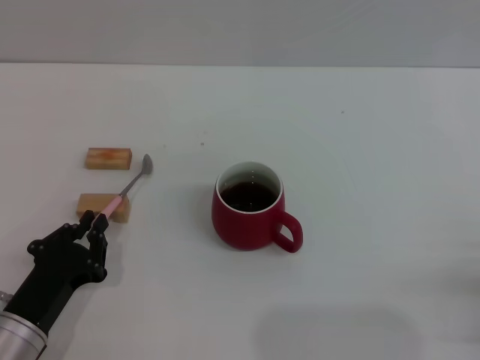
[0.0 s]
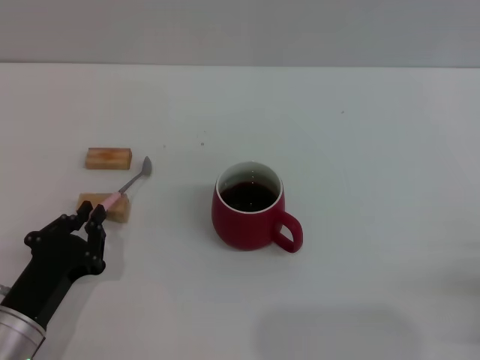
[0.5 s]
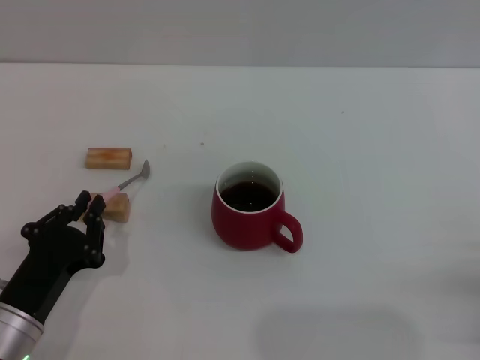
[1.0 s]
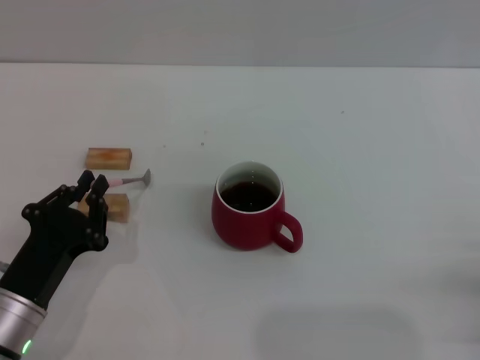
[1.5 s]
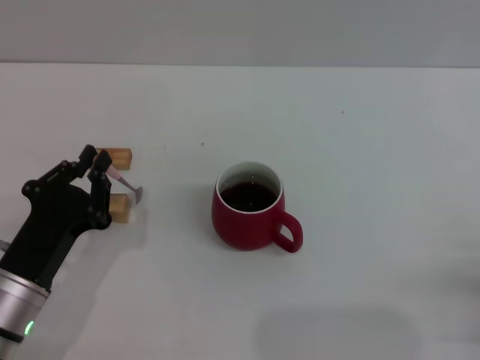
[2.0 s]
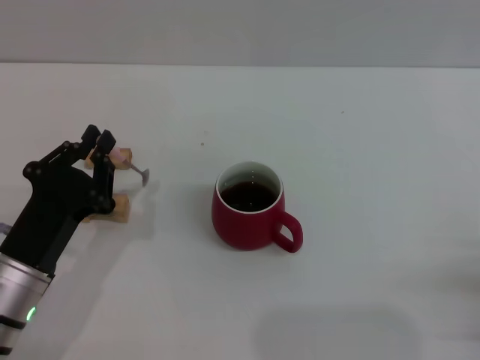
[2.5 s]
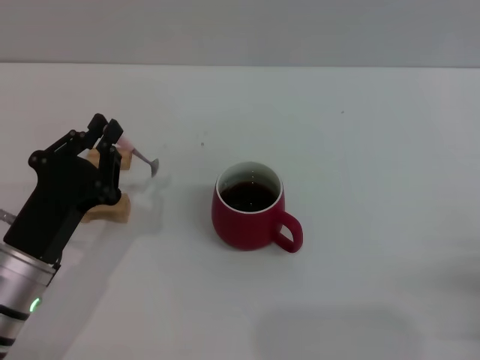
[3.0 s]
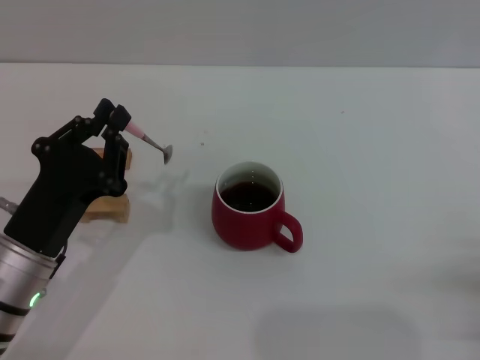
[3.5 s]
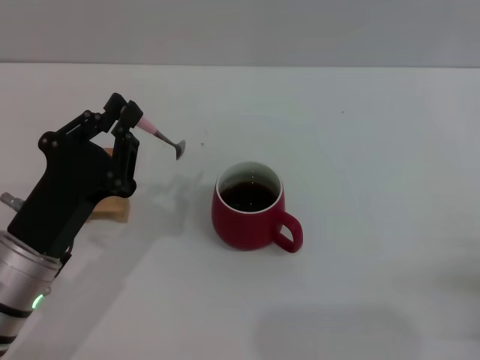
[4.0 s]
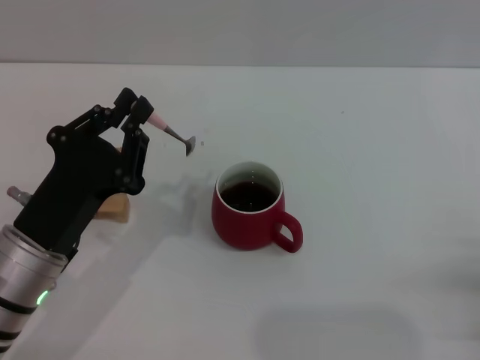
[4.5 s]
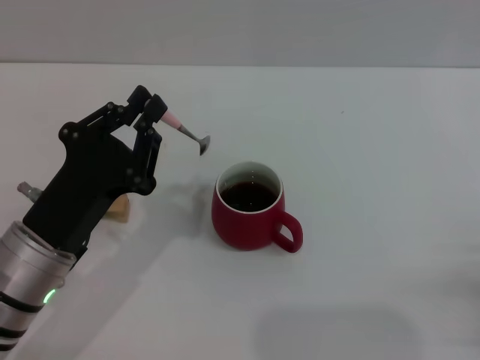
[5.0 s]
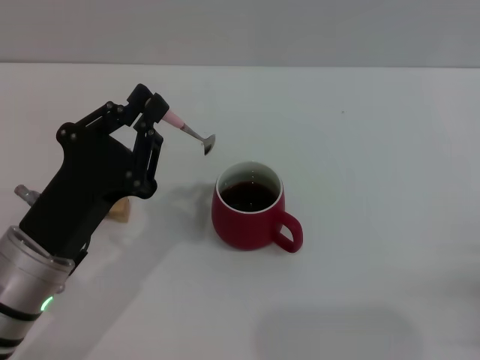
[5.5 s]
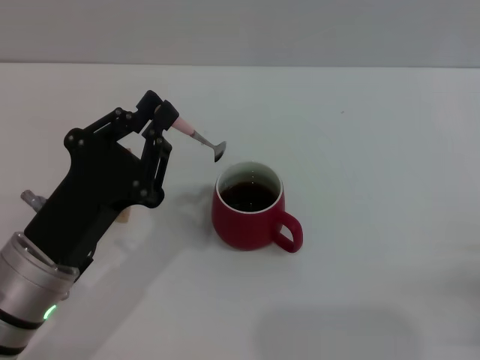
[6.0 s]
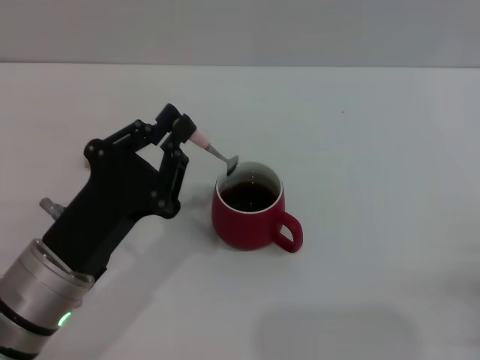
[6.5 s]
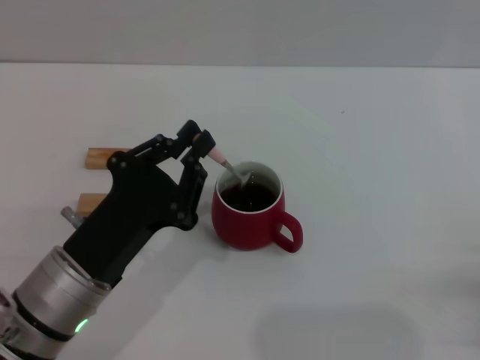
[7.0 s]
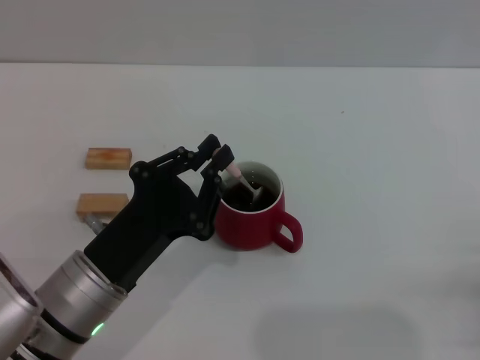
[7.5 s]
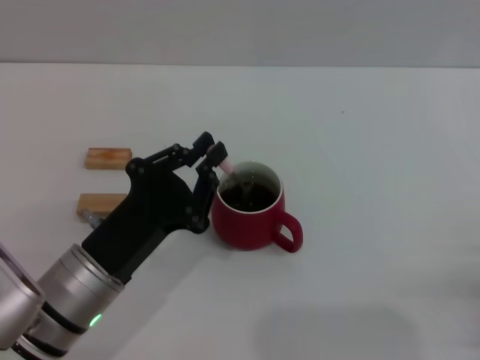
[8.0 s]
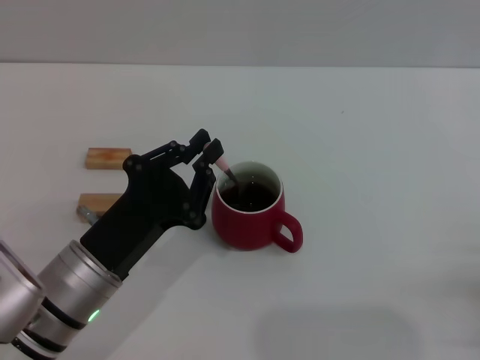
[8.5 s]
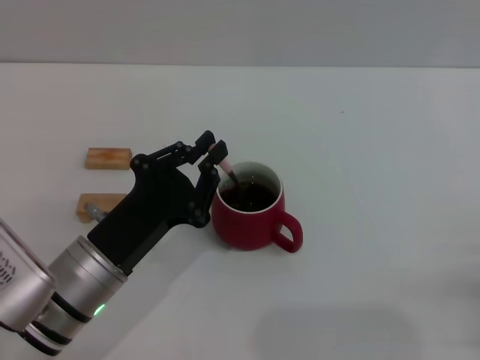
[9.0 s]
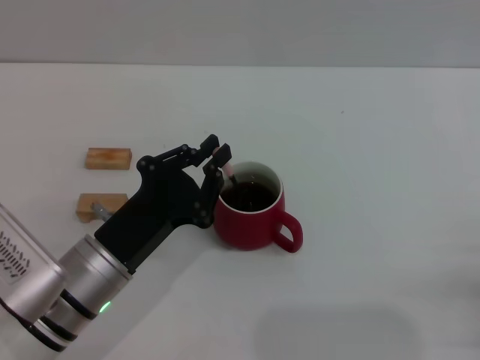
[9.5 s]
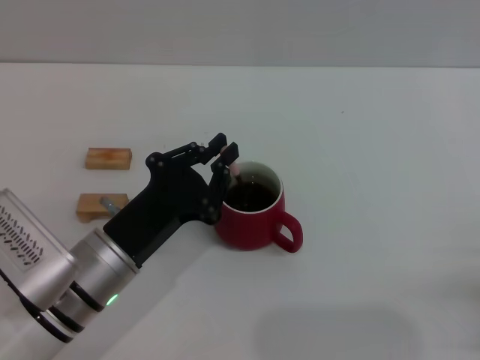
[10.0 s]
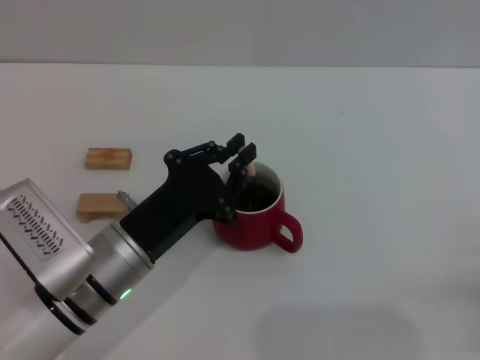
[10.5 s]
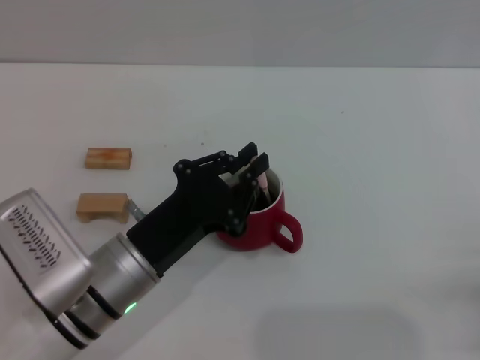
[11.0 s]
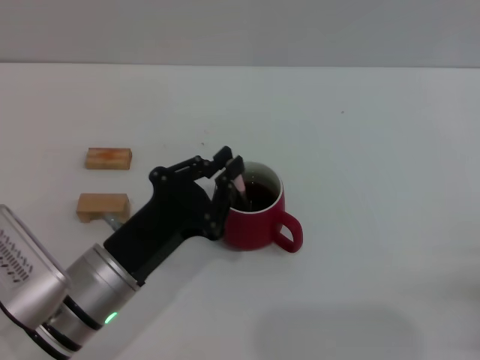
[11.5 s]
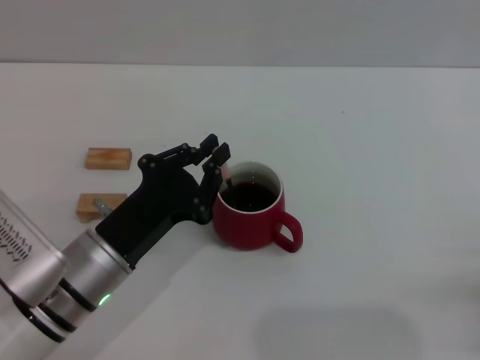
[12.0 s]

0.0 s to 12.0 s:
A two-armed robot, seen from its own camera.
Task of the whole recording: Move the red cup to the center, lift the pink spoon, stir it three times in the cup, and put the spoon into the cup.
Step, 0.0 to 3.5 s: Pick up the spoon with the left gripper.
0.0 to 2.0 s: The grippers move only a little.
2.0 to 4.0 s: There are only small adjustments of the grippers.
4.0 to 10.0 s: The grippers make only small movements.
10.0 to 12.0 s: The grippers stay close to where they were, moving slightly.

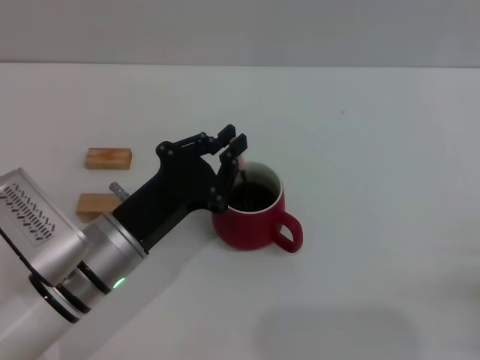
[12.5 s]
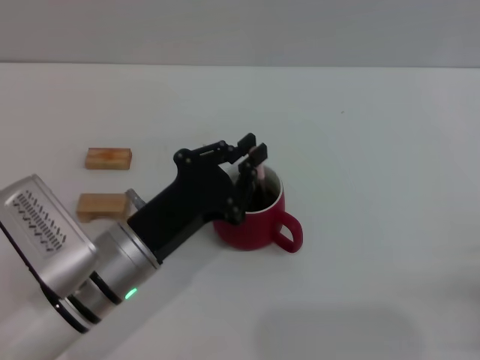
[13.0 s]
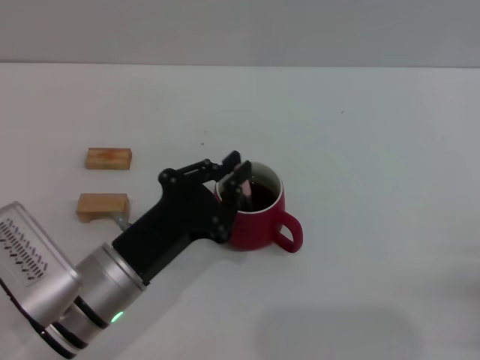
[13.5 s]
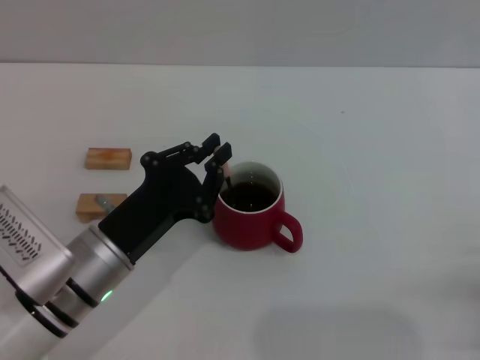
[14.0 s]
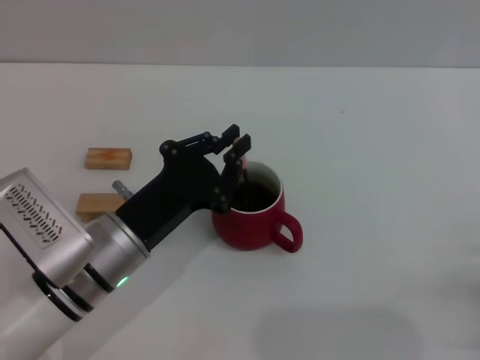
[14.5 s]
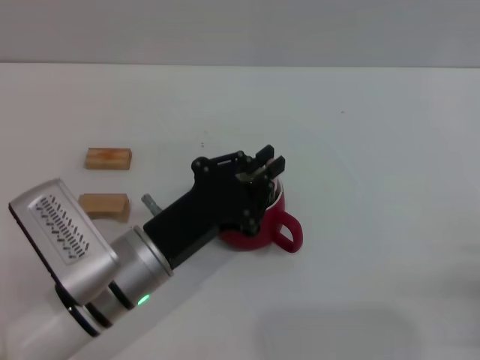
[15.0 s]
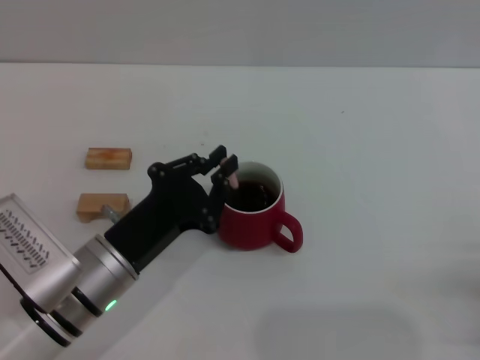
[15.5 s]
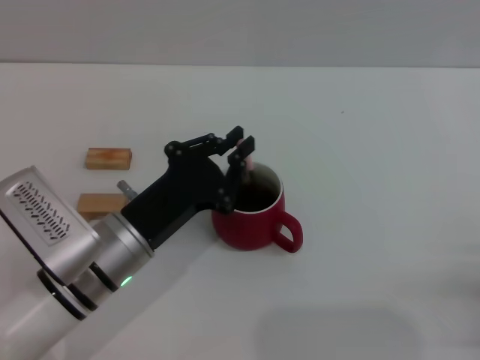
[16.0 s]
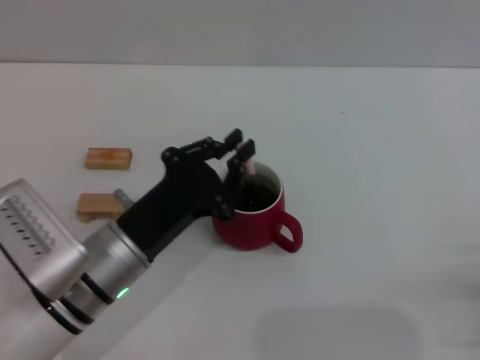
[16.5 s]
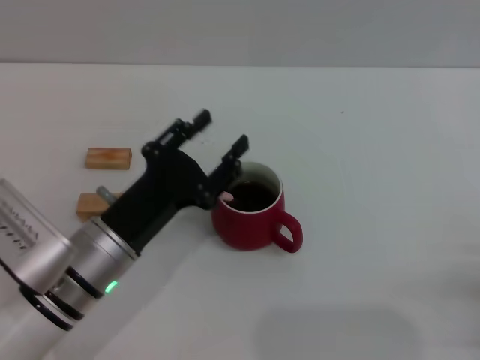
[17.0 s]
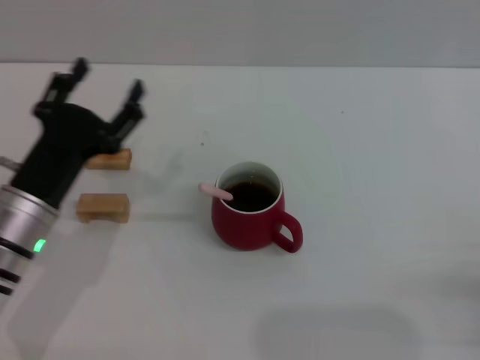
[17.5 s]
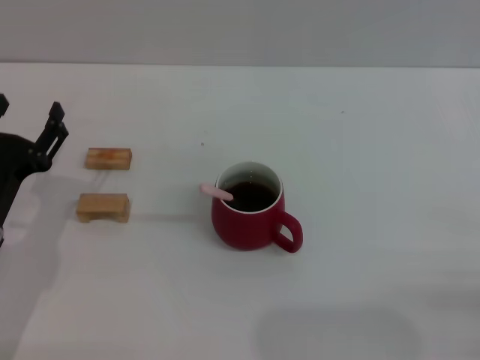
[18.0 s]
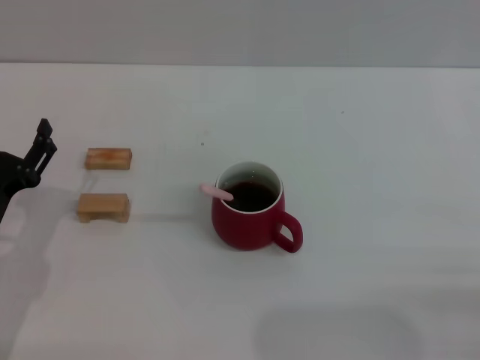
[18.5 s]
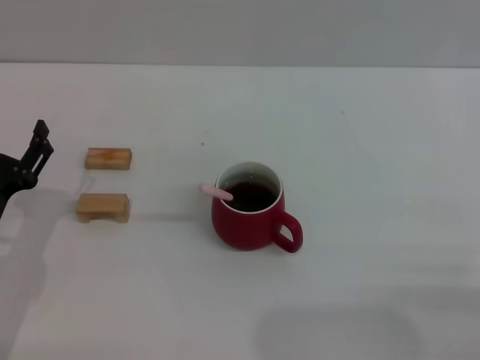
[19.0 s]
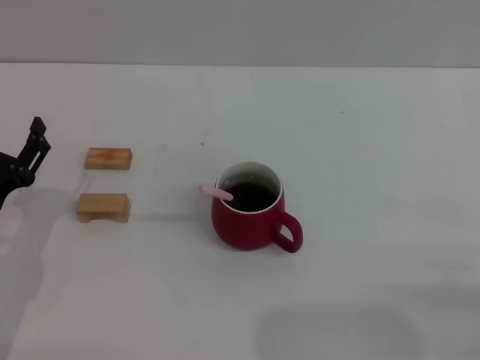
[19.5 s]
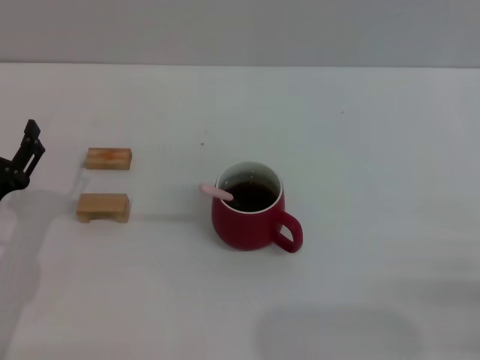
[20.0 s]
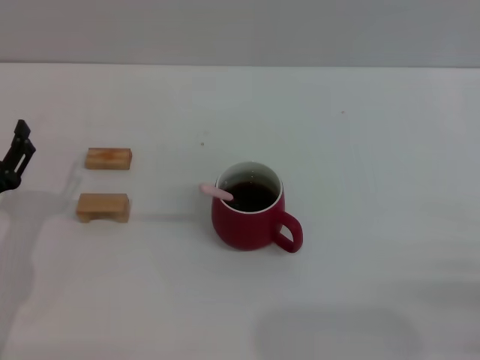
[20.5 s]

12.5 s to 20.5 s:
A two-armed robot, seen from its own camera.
Task of the whole recording: Move the red cup to the center, lift the pink spoon, stir it three times in the cup, and put the spoon into the cup.
Step, 12.5 to 17.0 s: Stir the coffee in the cup with the left gripper.
12.5 to 16.5 s: The grippers make only small movements.
16.5 to 18.5 s: The left gripper shifts roughly 15 cm to the left, and opens its fingers.

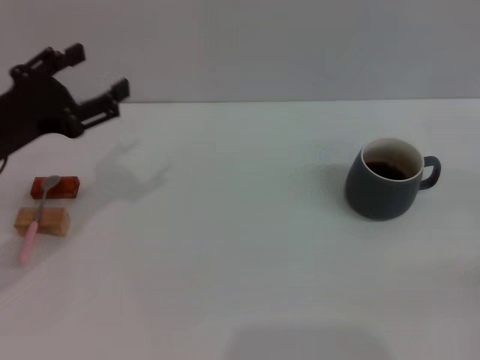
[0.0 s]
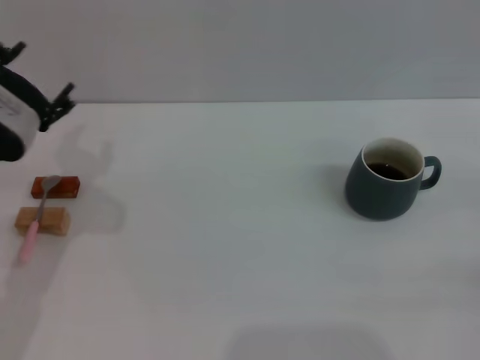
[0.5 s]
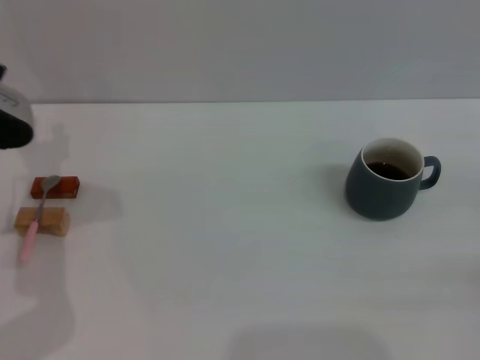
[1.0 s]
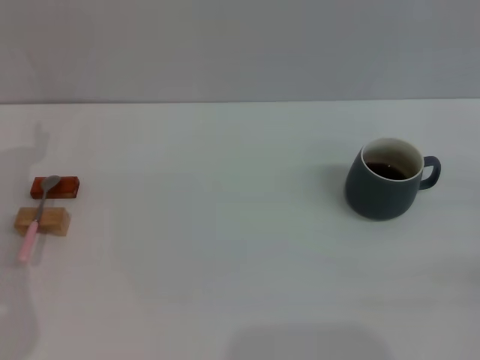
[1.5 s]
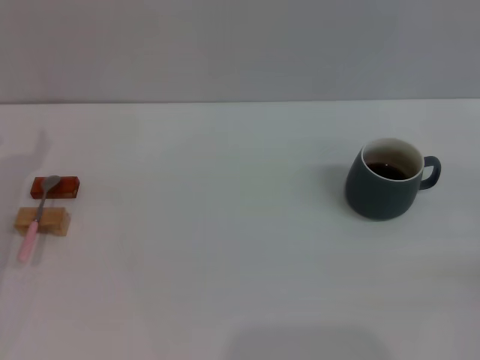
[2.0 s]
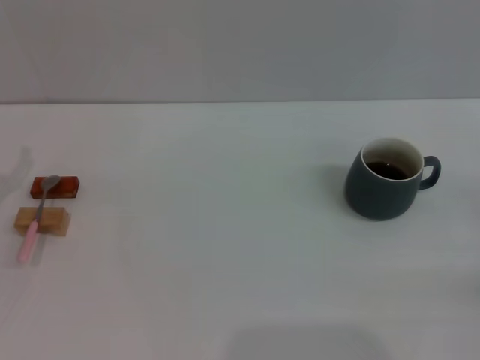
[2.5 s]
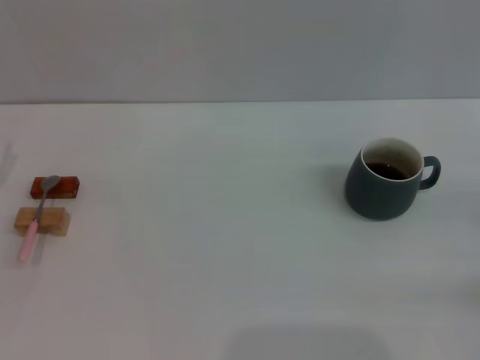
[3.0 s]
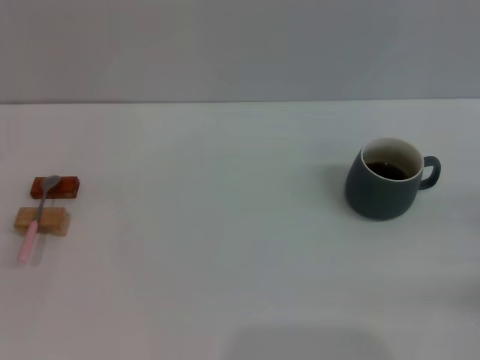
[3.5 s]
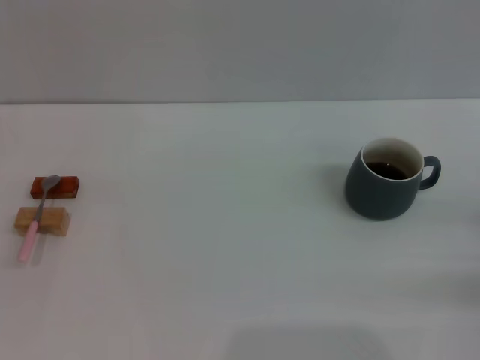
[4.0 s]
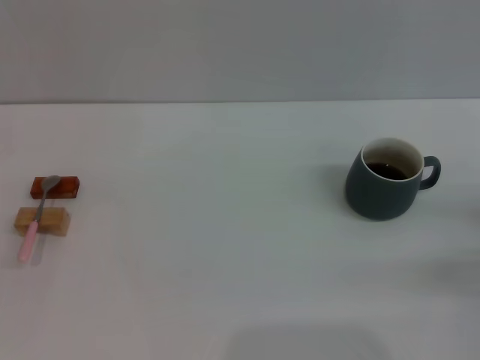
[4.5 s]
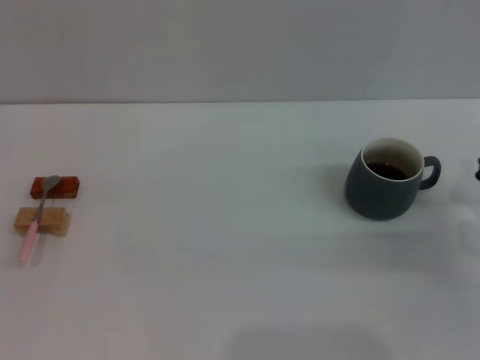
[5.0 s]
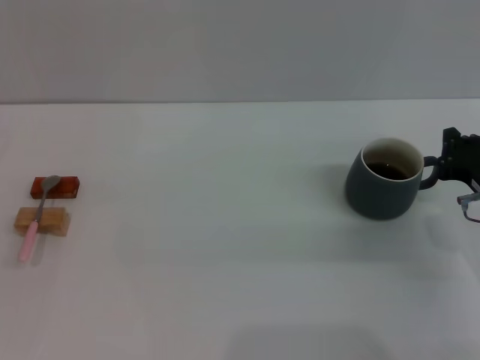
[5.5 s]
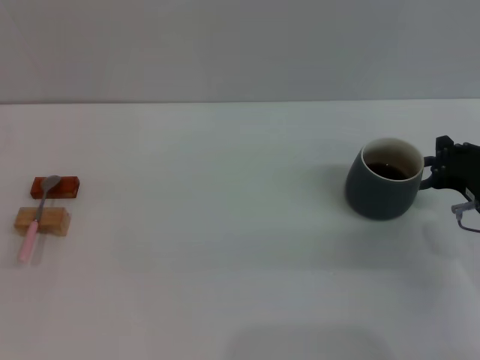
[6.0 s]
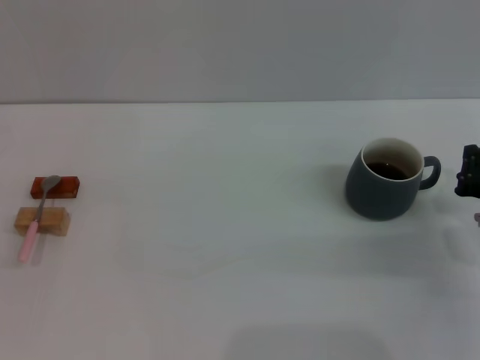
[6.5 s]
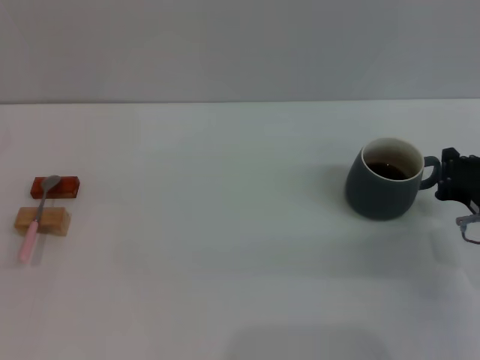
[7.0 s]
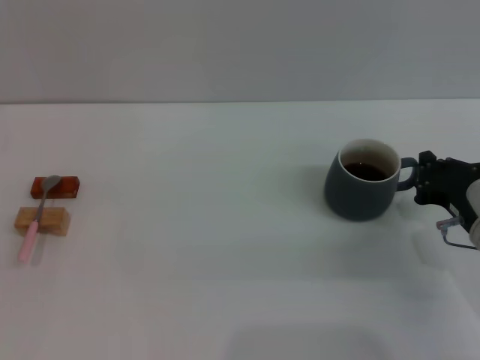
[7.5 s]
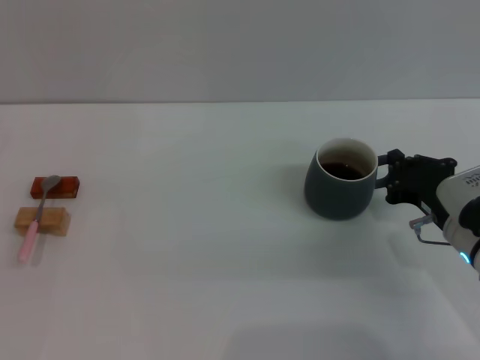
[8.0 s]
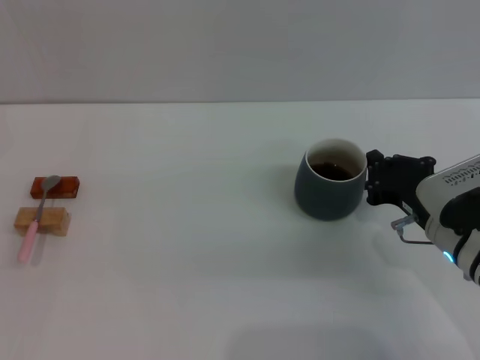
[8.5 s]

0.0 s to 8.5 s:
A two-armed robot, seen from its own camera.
Task of the whole recording: Move the grey cup to the center, lift the pink spoon, stir it three times in the cup, and put the spoon into the cup.
0.0 to 2.0 s: The left gripper ends up about 5 cm from where it was.
4.0 to 6.5 s: The right gripper moves to the left, roughly 10 cm.
6.5 to 8.5 s: The right gripper goes about 10 cm to the left.
